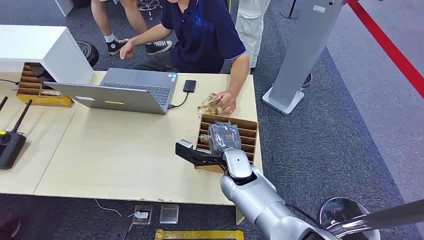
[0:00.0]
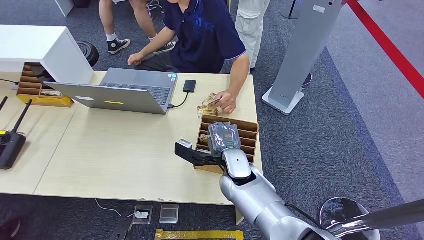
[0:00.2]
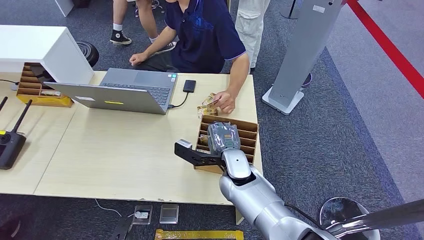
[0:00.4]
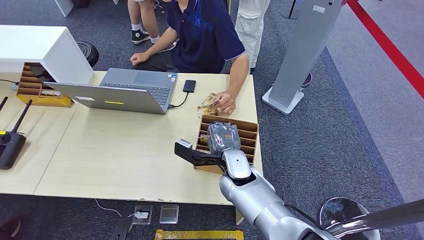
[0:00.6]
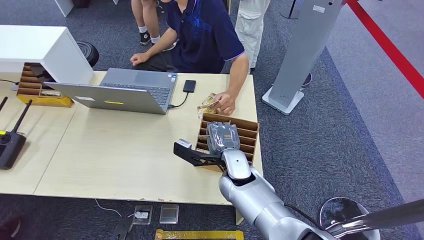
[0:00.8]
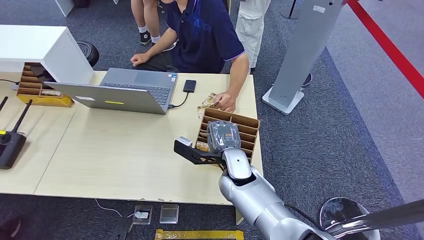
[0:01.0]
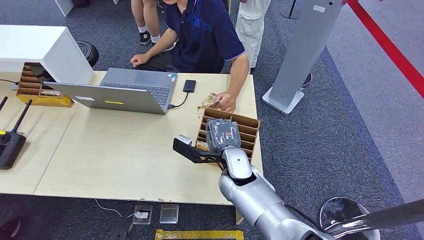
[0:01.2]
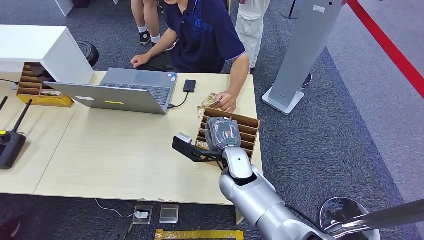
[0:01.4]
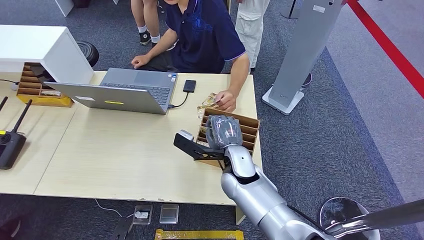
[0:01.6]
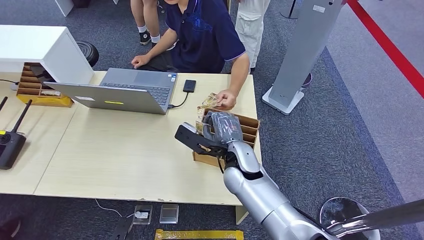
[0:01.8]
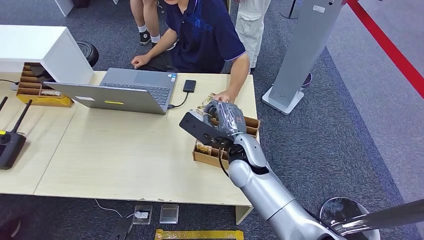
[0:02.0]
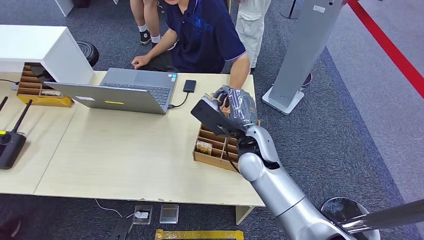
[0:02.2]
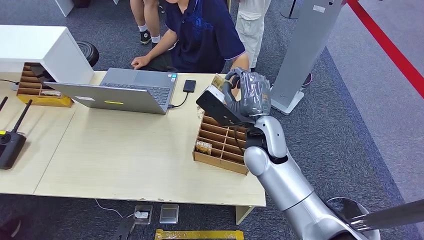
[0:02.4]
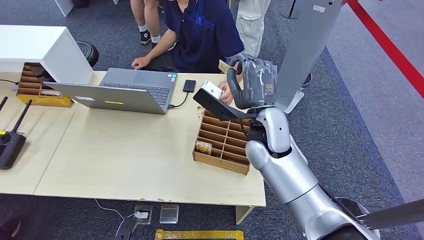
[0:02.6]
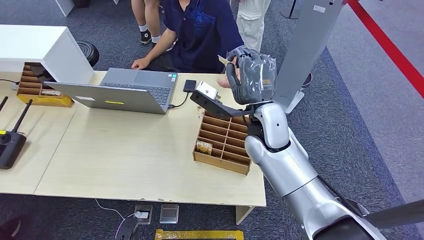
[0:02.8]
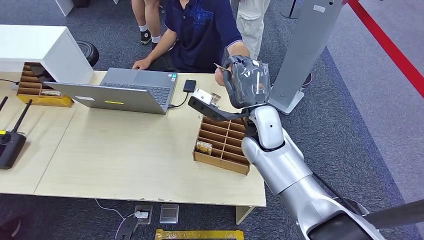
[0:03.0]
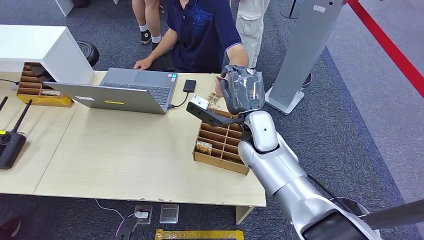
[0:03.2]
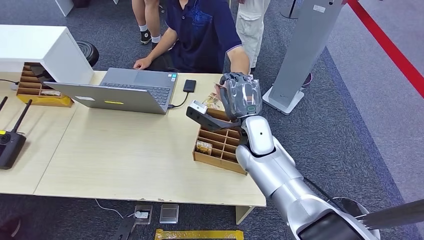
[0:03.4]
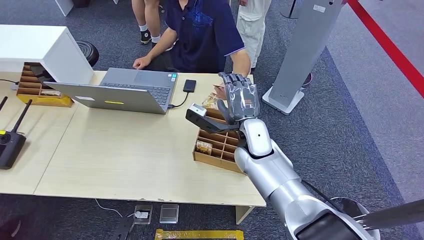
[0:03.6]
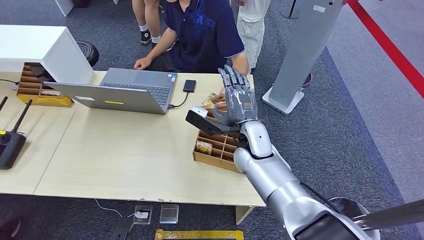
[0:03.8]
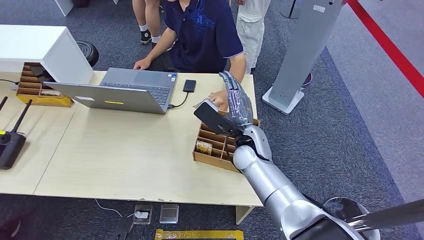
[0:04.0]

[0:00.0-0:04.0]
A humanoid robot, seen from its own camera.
Step, 0:00.0 to 0:02.2: Pick up the key card from the card box.
Step, 0:03.2 to 0:04.0: Hand the key card to the target.
0:01.4 to 0:02.6: The right hand moves upward, about 10 cm.
0:02.6 to 0:04.0: The right hand heads downward, covering approximately 10 cm.
